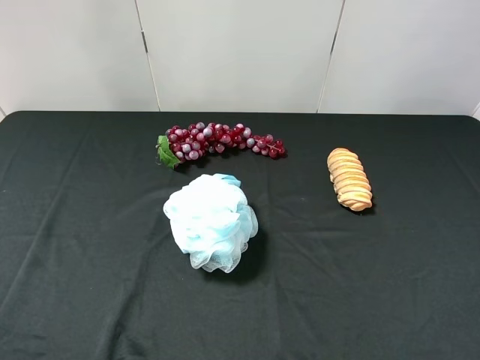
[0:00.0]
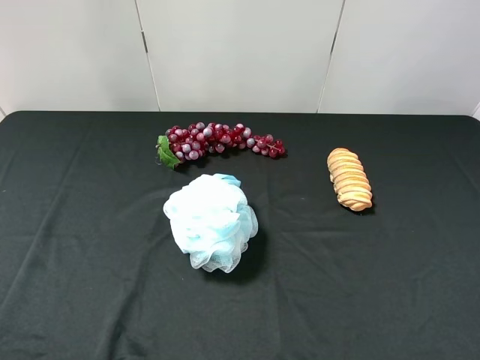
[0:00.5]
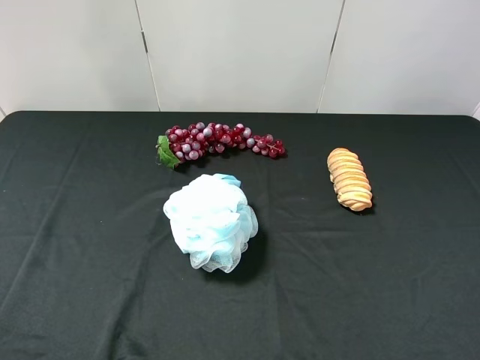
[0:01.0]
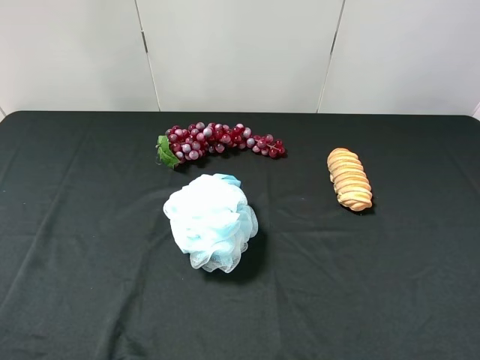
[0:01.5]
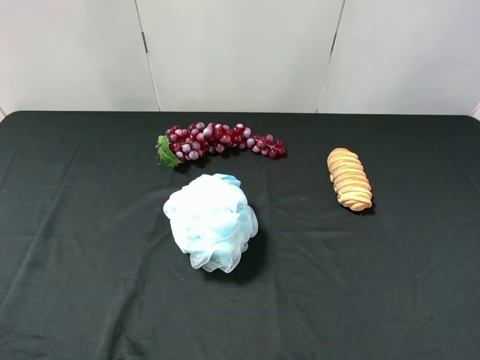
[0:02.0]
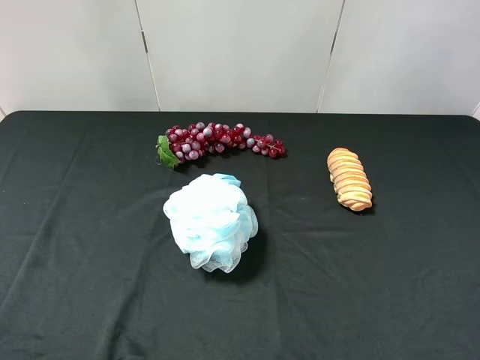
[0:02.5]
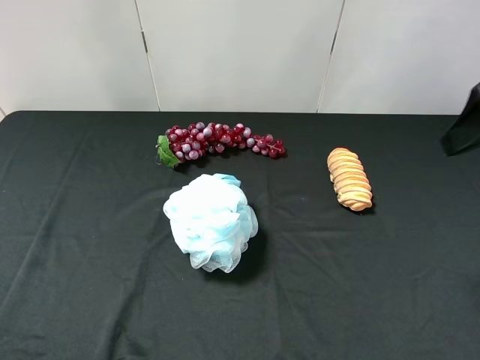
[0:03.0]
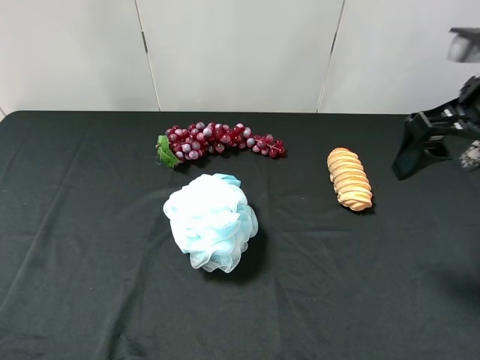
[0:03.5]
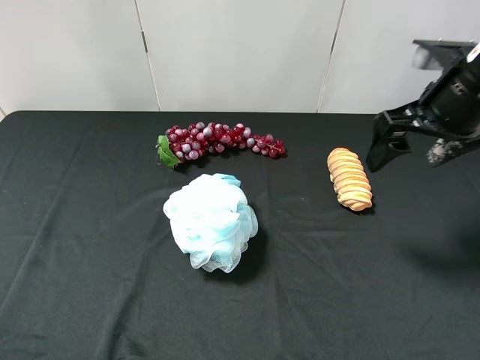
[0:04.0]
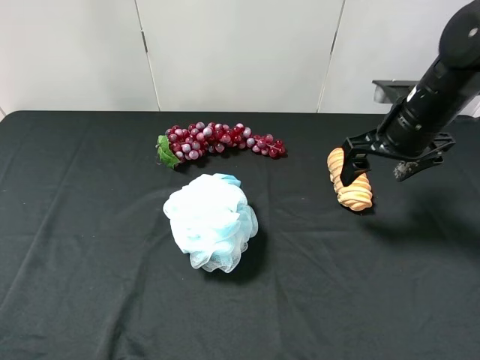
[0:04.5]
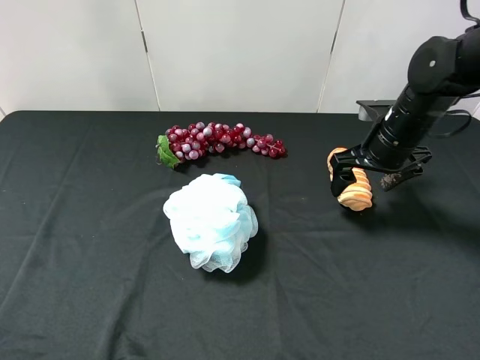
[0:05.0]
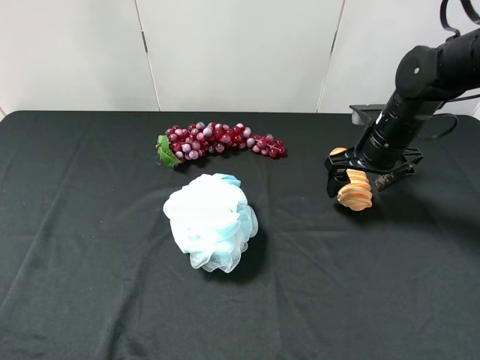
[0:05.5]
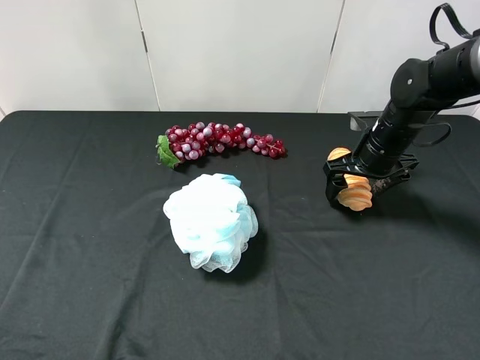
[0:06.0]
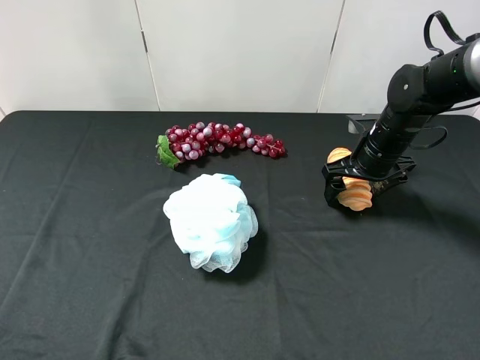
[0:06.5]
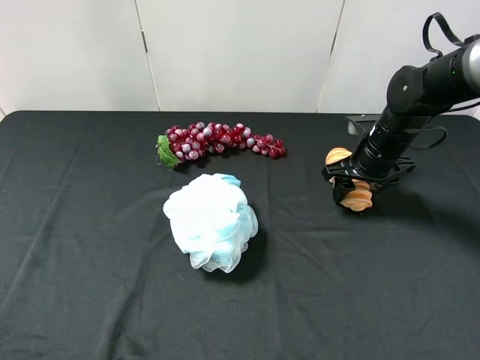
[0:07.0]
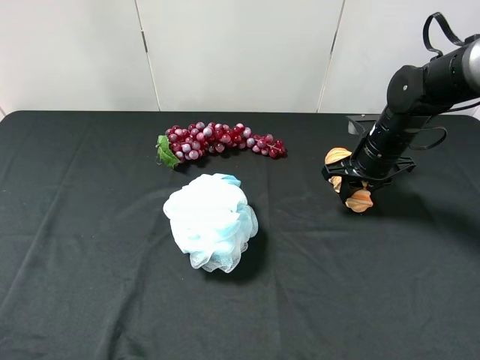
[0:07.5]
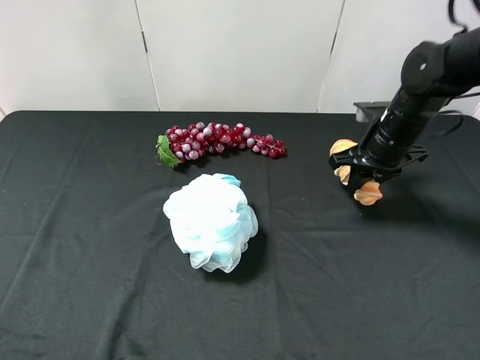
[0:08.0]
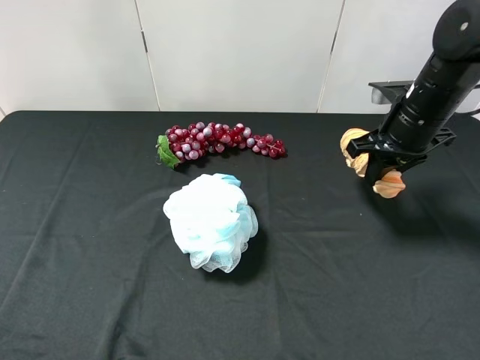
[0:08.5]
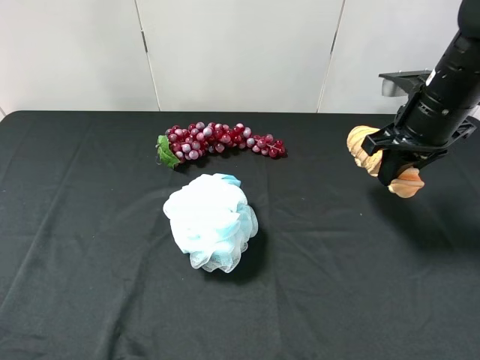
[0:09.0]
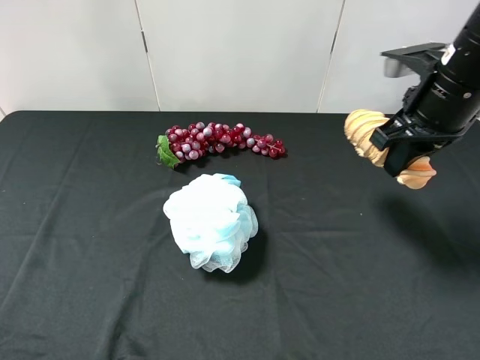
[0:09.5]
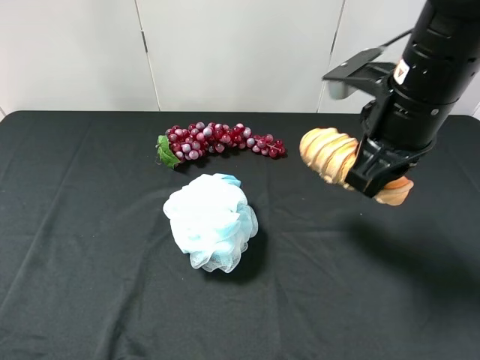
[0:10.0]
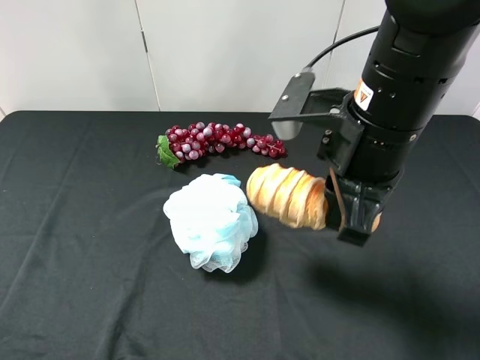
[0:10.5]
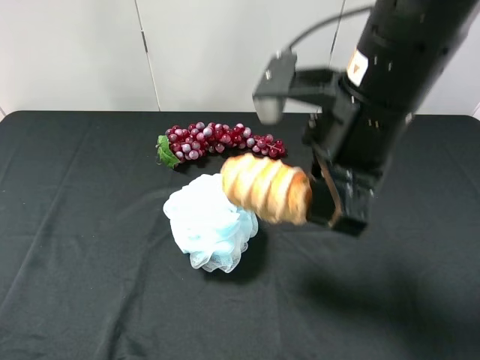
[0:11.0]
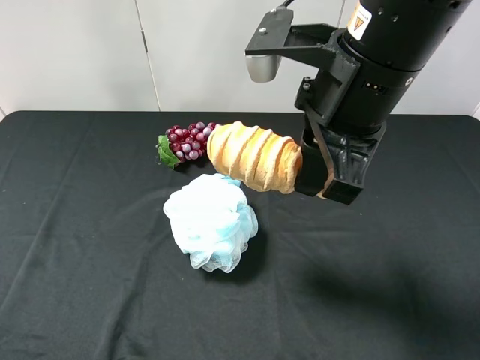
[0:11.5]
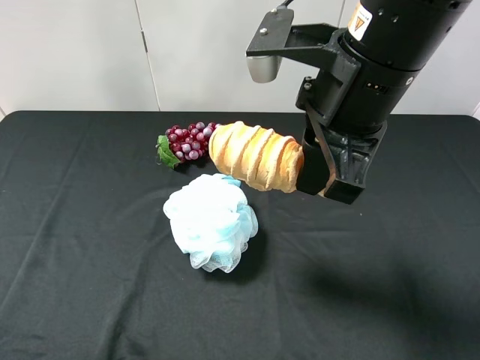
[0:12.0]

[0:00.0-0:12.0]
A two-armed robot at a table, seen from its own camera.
Task of the whole recording: use the right gripper to pick up the item and transfer it from the right gripper to the left gripper.
Step, 0:00.0 to 0:07.5: Use the right gripper to grab the bread on the right side of the table.
0:02.0 to 0:04.0: The right gripper shifts about 25 cm forward and downward.
0:04.0 to 0:06.0: The right gripper travels downward and forward by roughly 15 cm.
0:06.0 to 0:08.0: The right gripper closes.
0:08.0 to 0:10.0: The right gripper goes some 20 cm backward, upward and to the left.
0:10.0 to 0:12.0: The right gripper moves to the left, roughly 5 cm. Meanwhile the left gripper shifts about 10 cm forward.

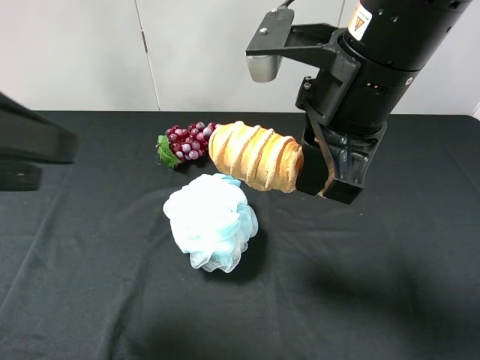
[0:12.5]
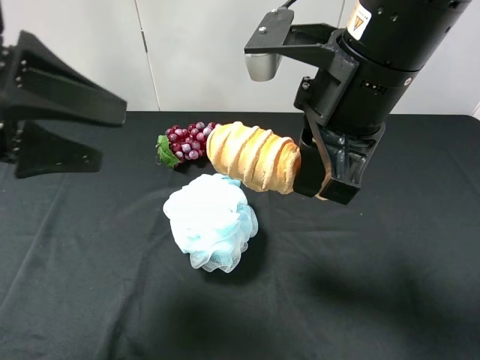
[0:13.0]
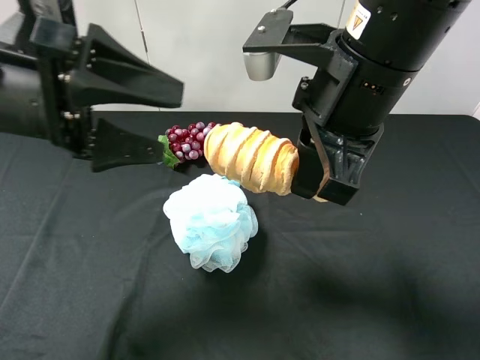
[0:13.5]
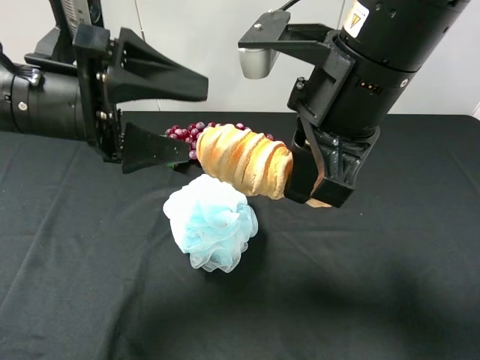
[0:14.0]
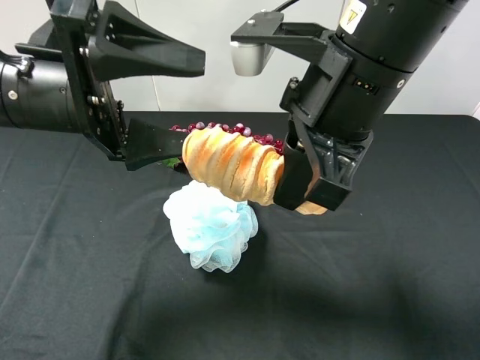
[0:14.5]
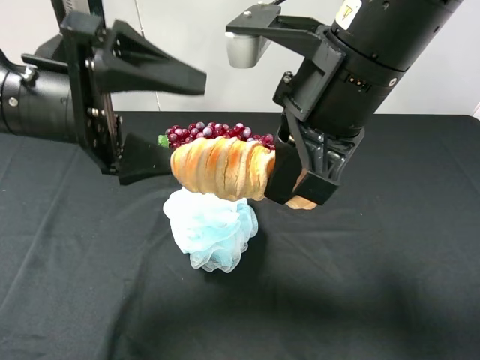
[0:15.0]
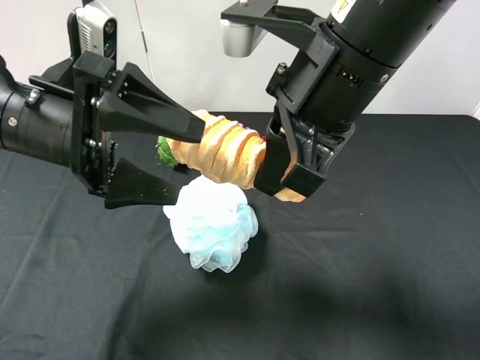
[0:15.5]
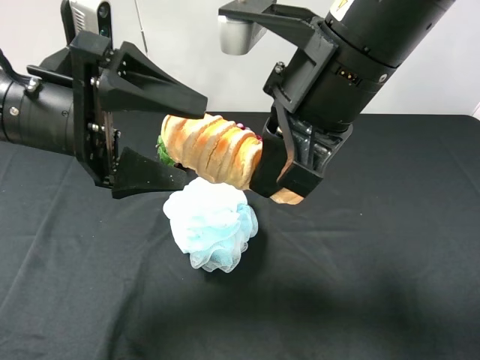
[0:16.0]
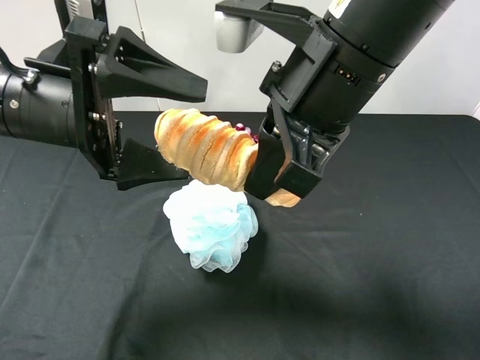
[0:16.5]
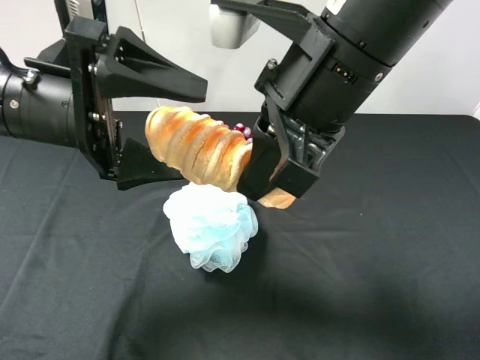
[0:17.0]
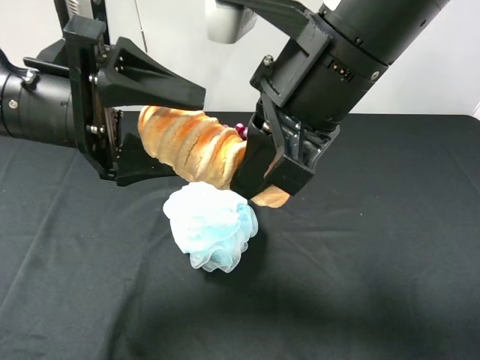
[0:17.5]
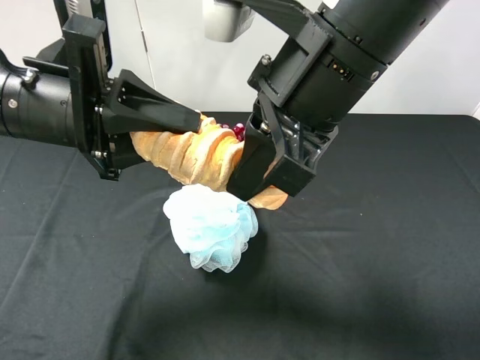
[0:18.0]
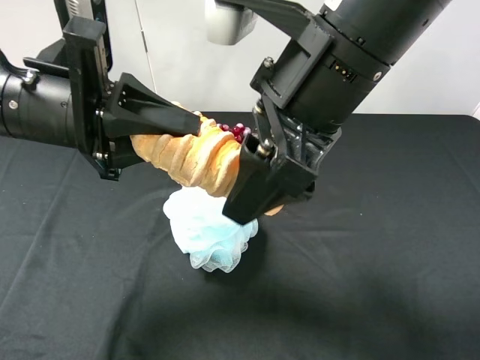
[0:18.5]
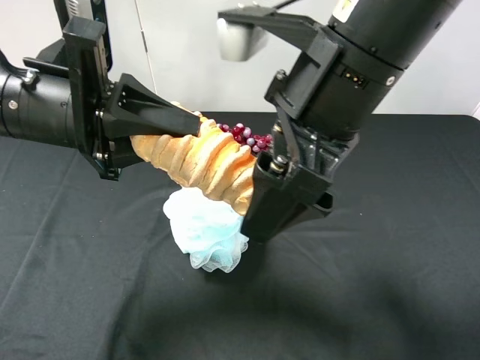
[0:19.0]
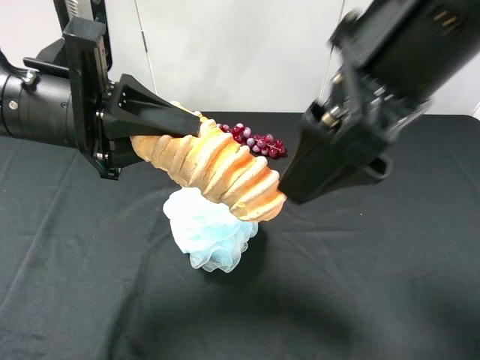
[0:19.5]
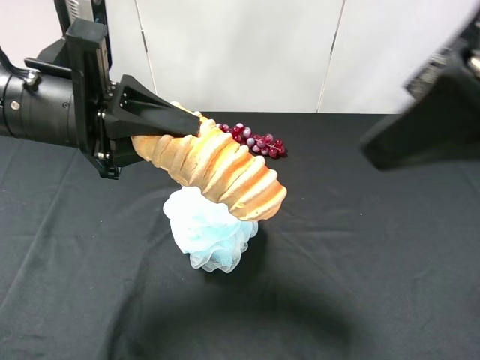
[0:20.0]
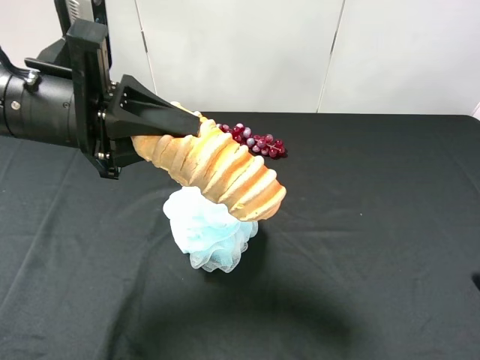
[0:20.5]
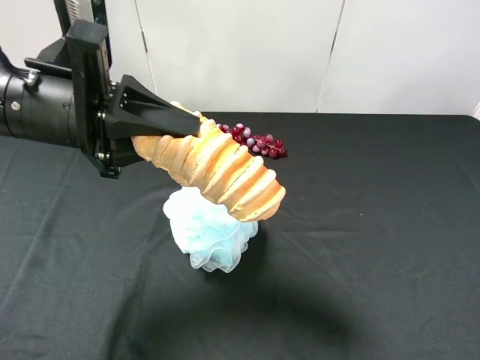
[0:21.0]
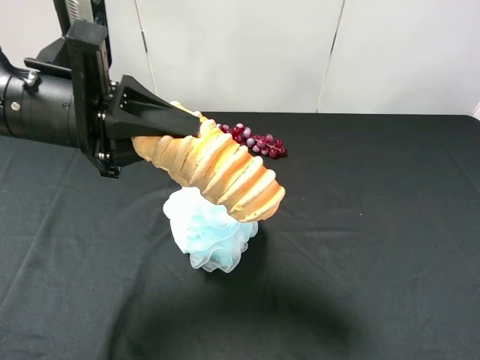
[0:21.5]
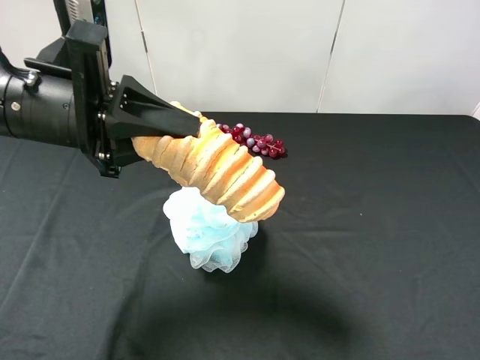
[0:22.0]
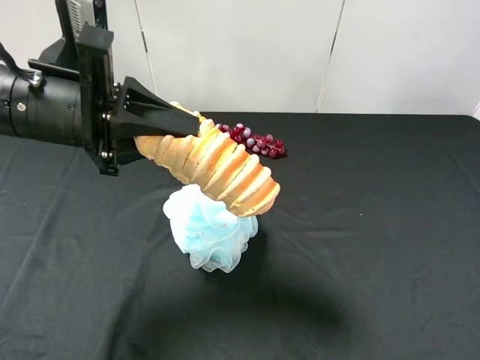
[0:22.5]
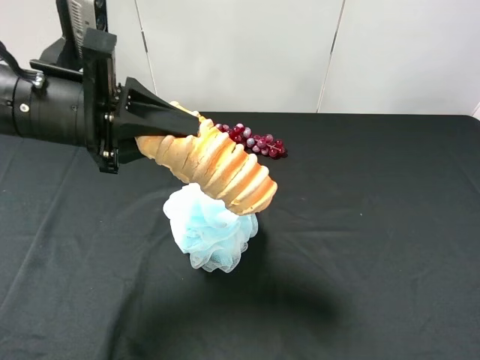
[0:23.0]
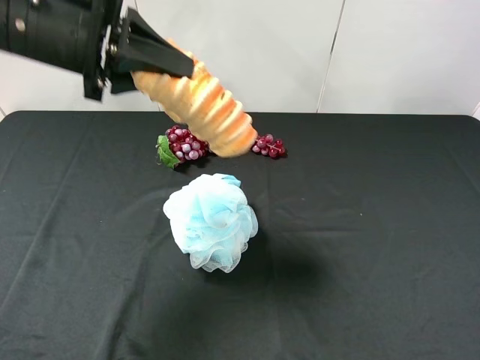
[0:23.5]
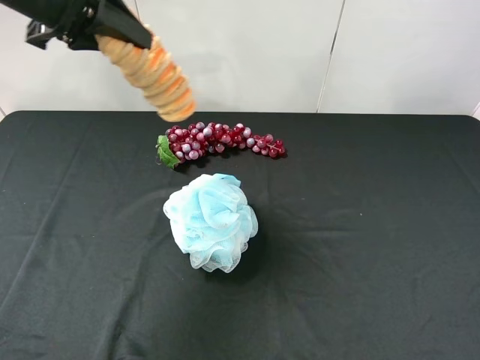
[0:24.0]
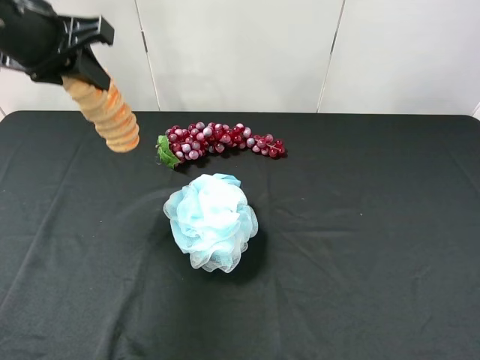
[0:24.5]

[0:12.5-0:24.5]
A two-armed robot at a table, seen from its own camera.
Task of the whole recording: use the right gripper to pick up the item and transfer it from the right gripper to the left gripper.
Step, 0:12.5 to 0:18.5: Pass the bread to the left gripper.
0:12.5 to 0:14.5: The left gripper travels forward, to the right and downward by some 10 cm.
0:16.5 to 0:18.5: The left gripper closes up. The right gripper opens.
0:18.5 to 0:20.5: The right gripper goes approximately 25 cm to the right and backward.
0:20.5 to 0:22.5: The right gripper shifts by approximately 5 cm.
0:22.5 to 0:24.5: The left gripper travels forward and upward by approximately 10 cm.

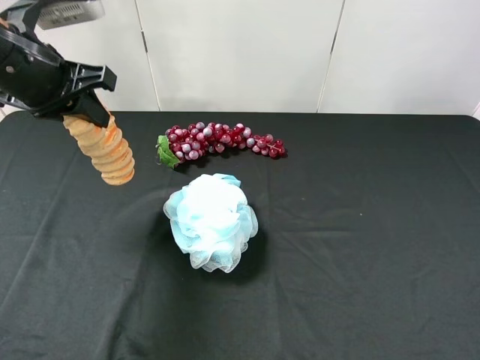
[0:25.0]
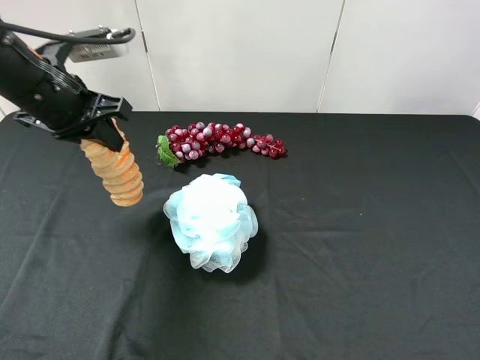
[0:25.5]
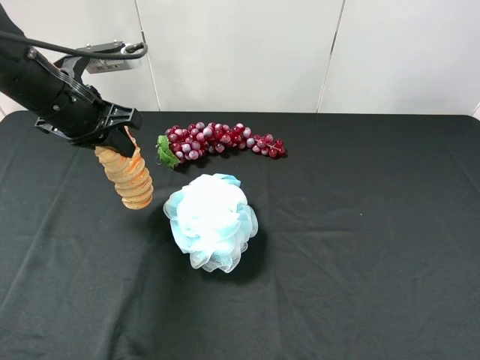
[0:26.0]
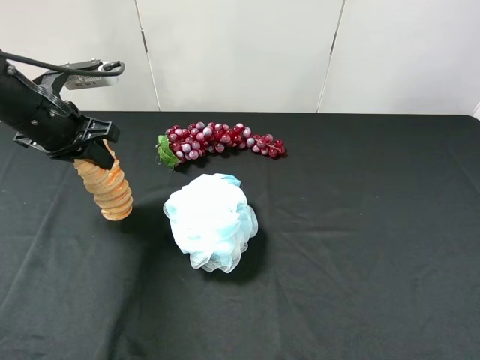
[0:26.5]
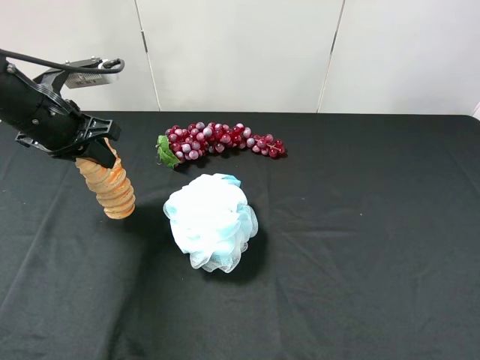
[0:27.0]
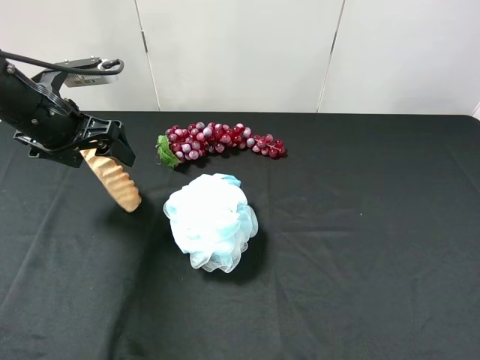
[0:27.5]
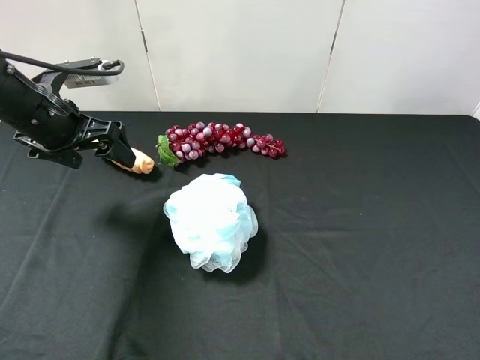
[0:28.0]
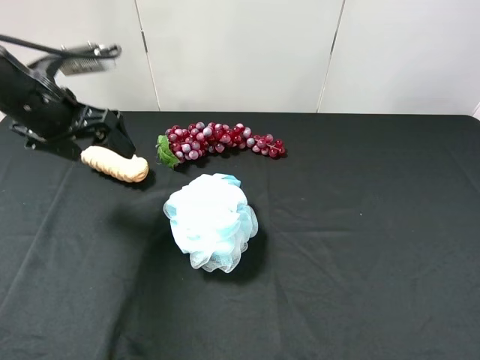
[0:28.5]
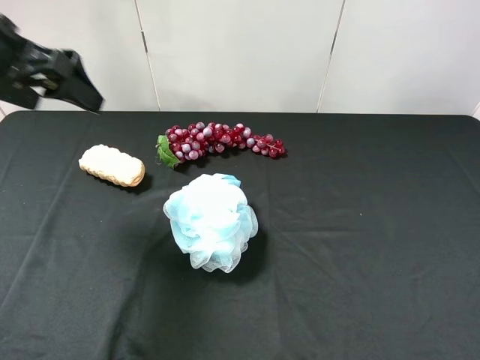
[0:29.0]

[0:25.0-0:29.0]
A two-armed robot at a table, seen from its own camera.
Task of the whole recording: use the right gripper to pick up the item and transfer it from the right gripper to the left gripper.
Step, 0:25.0 to 0:28.0: The left gripper places bread on the left side of the table.
0:25.0 to 0:27.0: The left gripper heads downward, covering about 5 cm.
0:27.0 to 0:29.0: The left gripper goes approximately 10 cm upward, and opens its fingers.
